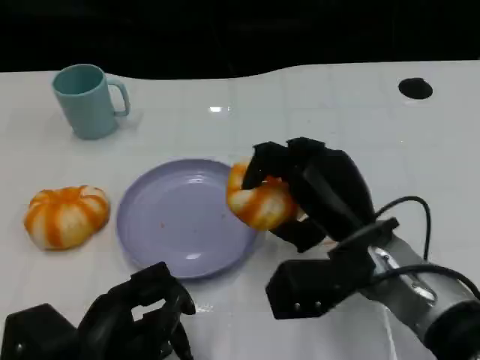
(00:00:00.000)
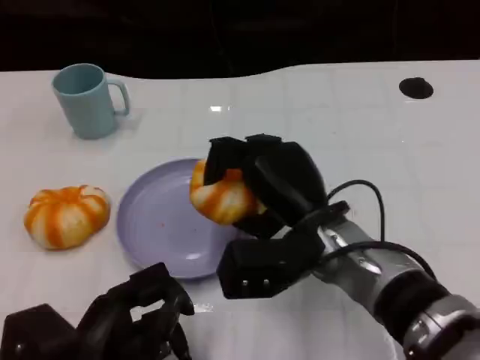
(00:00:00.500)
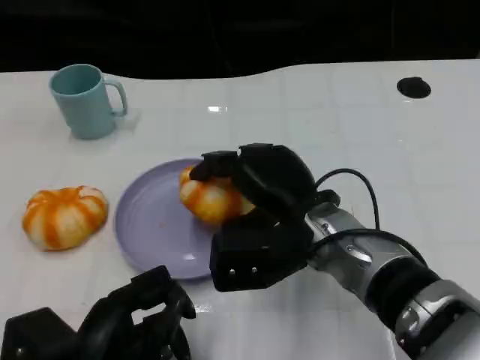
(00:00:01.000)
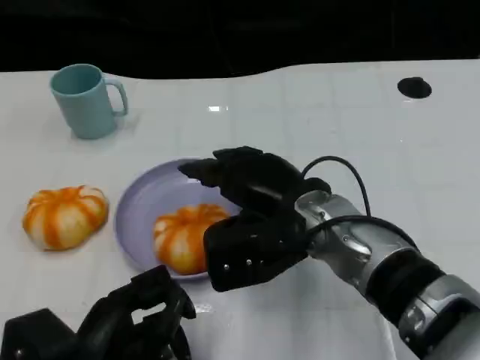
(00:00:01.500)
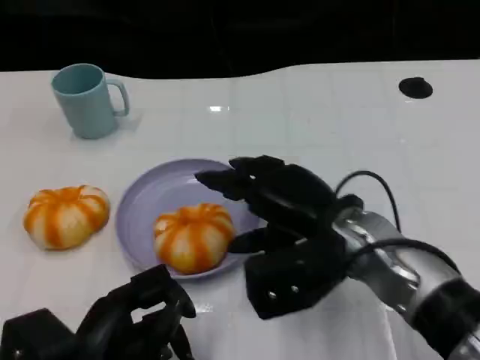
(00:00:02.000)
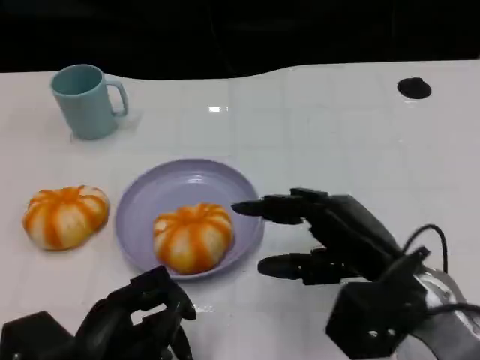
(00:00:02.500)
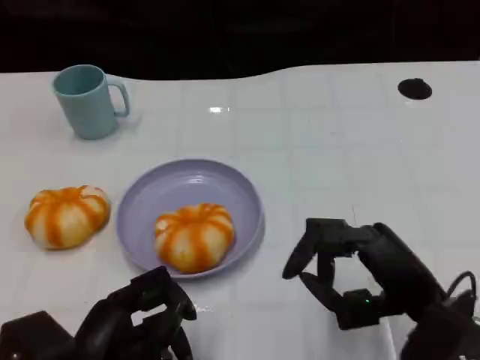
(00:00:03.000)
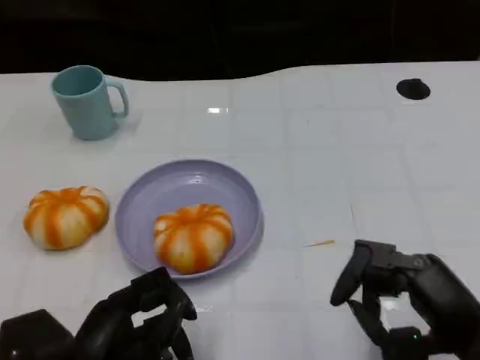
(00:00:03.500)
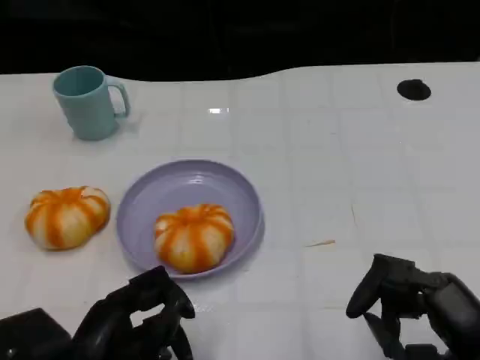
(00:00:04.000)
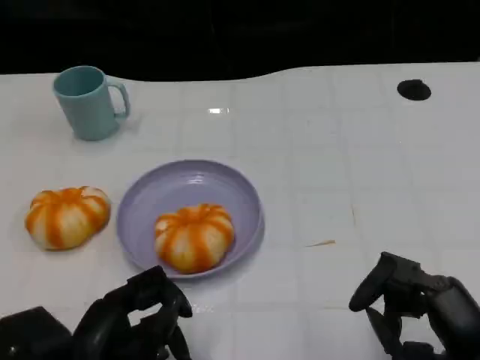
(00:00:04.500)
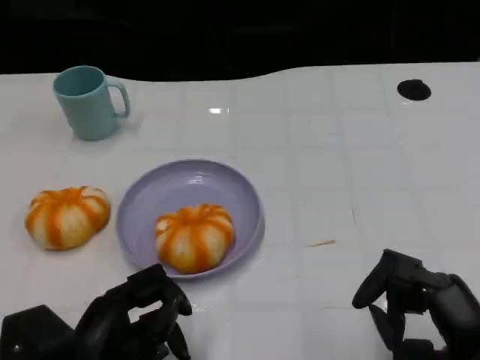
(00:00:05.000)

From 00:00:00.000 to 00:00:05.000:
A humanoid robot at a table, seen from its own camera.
Task of the whole recording: Grasp the bread from the table and place it into the plate.
From 00:00:00.000 to 00:00:02.500: The right hand moves approximately 5 cm.
From 00:00:02.500 to 00:00:05.000: The right hand shifts some 10 cm backward and to the right.

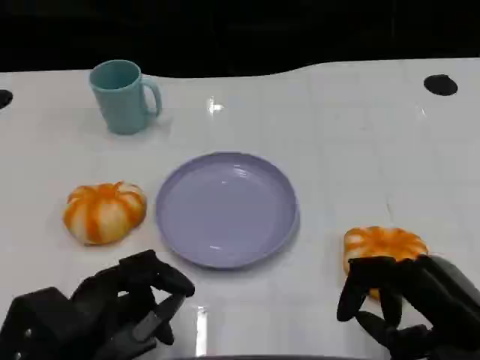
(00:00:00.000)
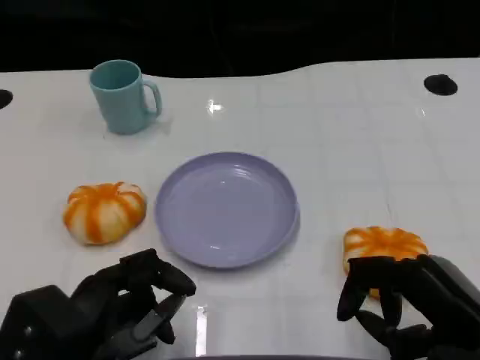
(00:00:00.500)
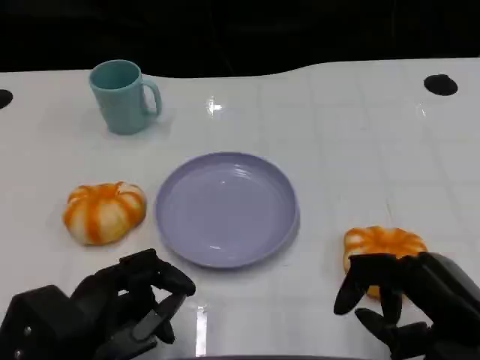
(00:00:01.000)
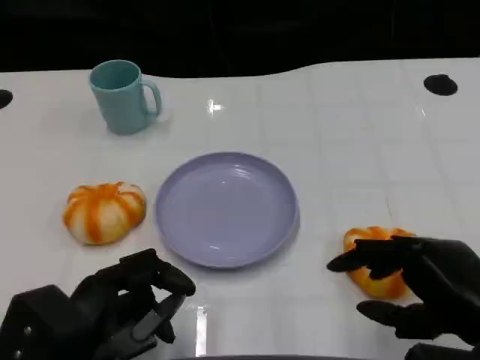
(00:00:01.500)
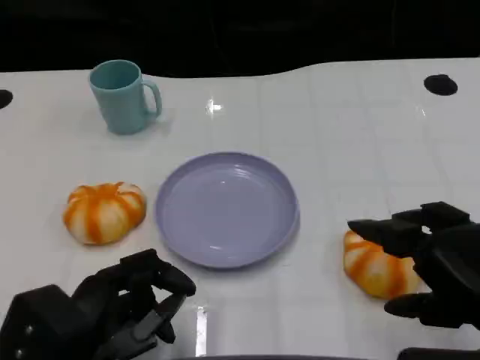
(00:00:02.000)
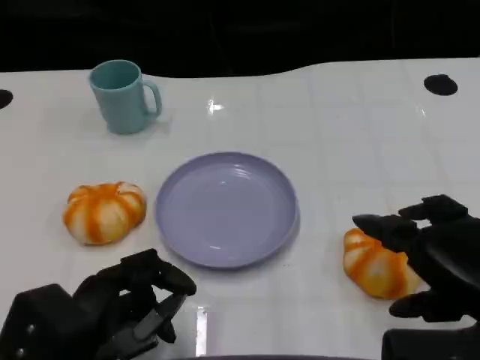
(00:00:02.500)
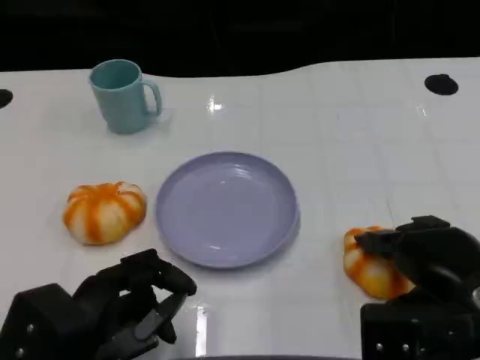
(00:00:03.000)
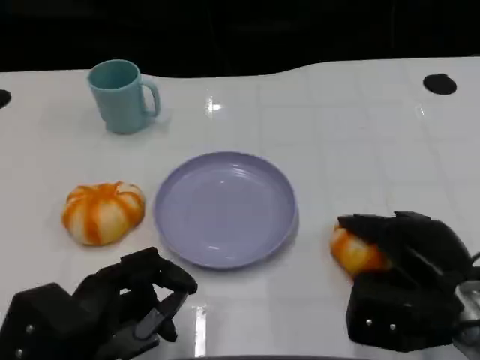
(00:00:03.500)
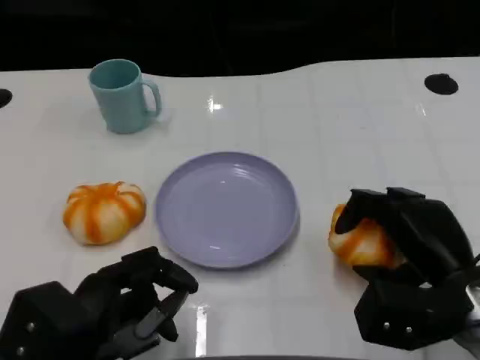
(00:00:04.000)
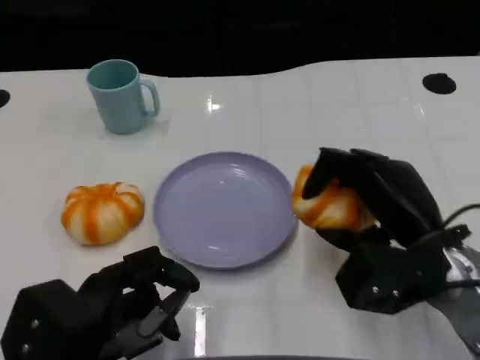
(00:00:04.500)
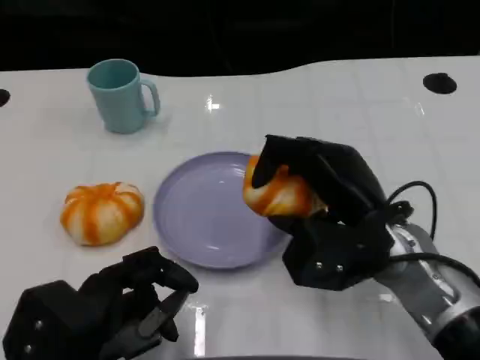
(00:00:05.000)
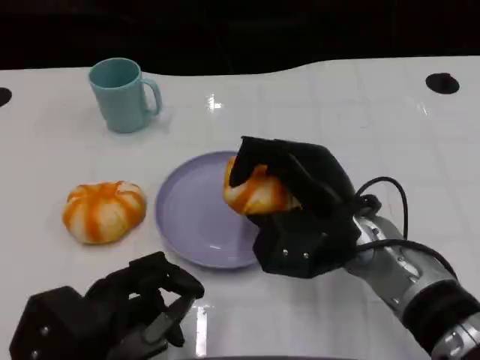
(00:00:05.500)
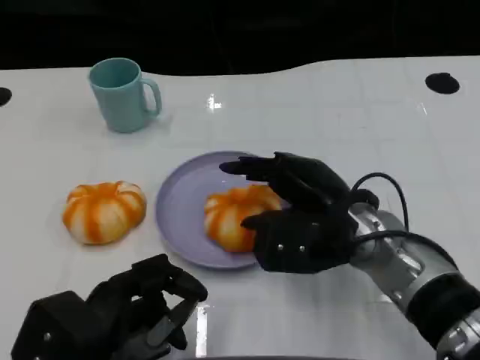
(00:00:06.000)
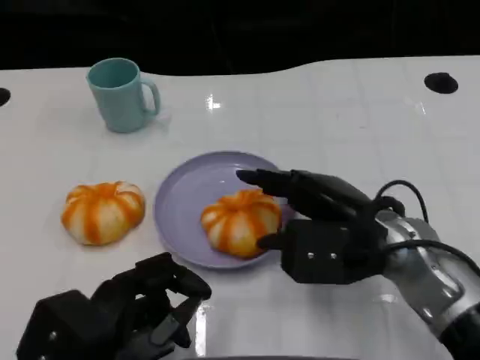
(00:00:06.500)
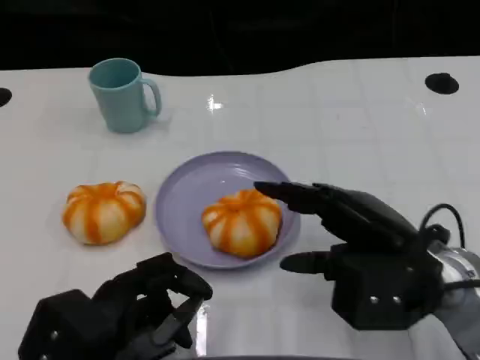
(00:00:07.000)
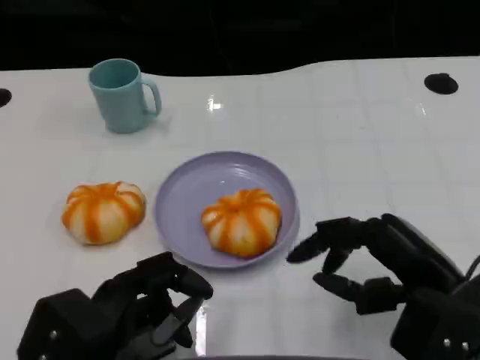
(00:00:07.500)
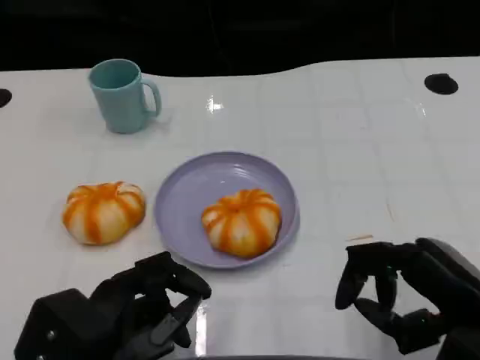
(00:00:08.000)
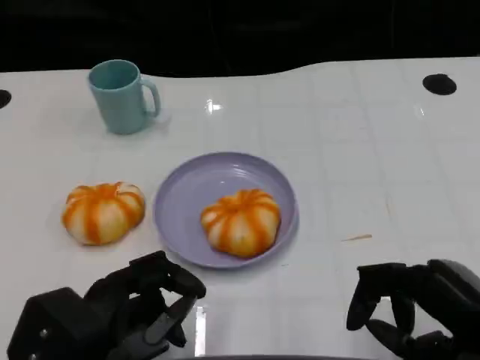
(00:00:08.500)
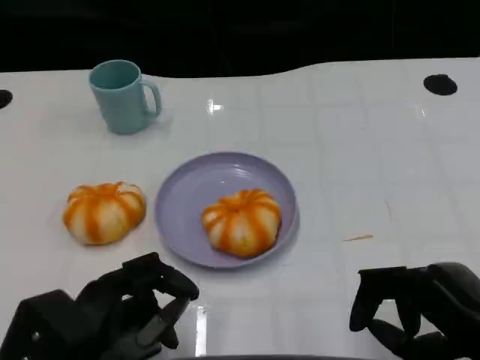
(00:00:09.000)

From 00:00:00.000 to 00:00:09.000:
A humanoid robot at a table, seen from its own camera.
Task of the whole recording: Grasp the bread from the table and place it into the plate.
From 00:00:02.000 to 00:00:04.500: The right hand shifts roughly 10 cm forward and to the left.
From 00:00:04.500 to 00:00:07.000: The right hand reaches approximately 10 cm to the left, then returns.
From 00:00:07.000 to 00:00:09.000: The right hand travels backward and to the right by about 10 cm.

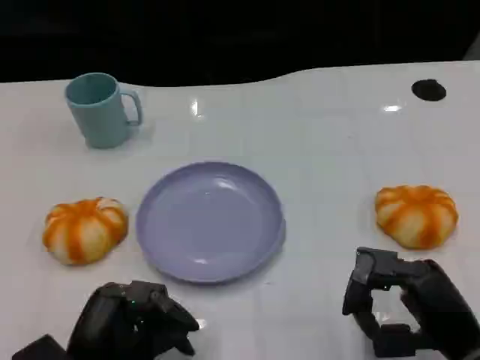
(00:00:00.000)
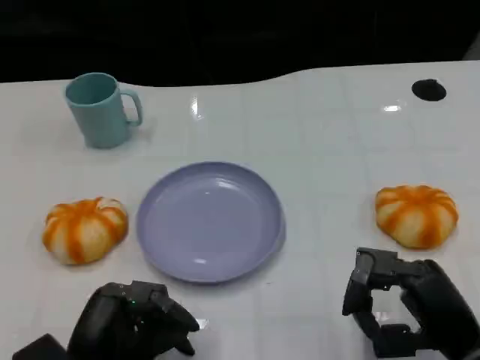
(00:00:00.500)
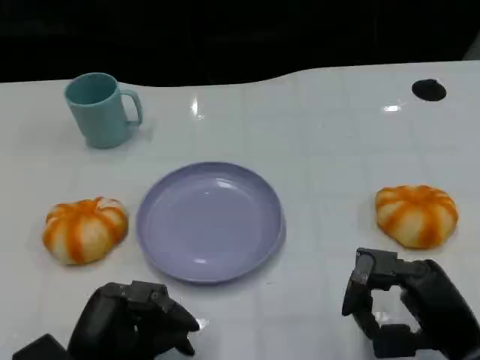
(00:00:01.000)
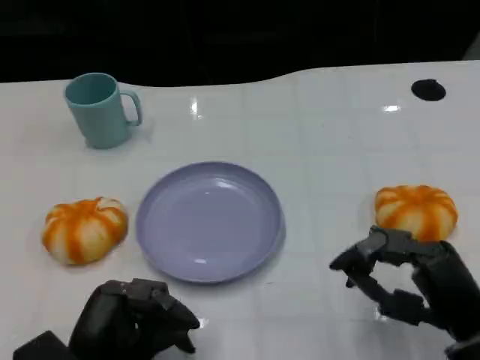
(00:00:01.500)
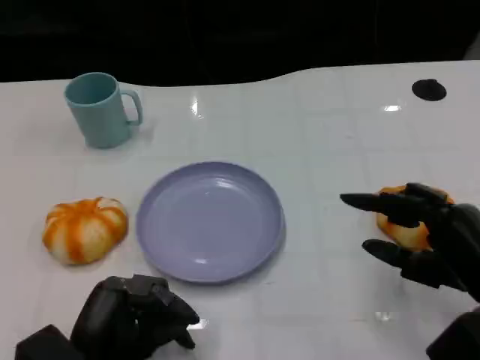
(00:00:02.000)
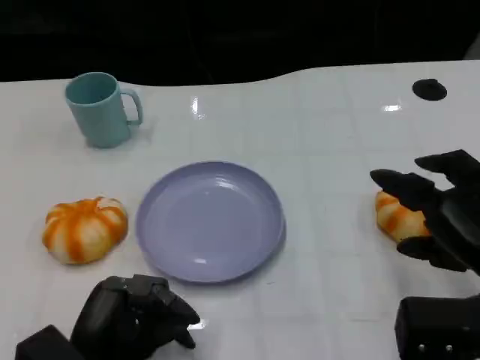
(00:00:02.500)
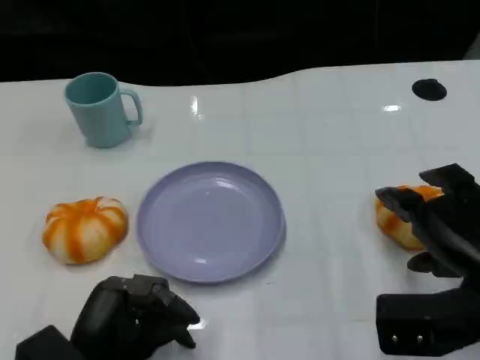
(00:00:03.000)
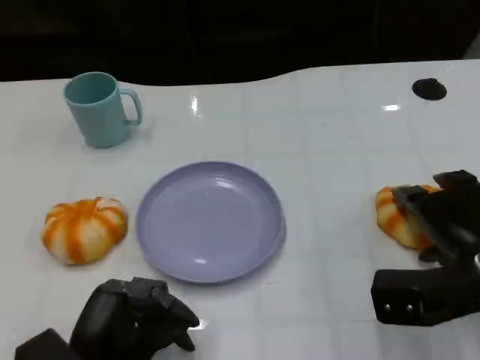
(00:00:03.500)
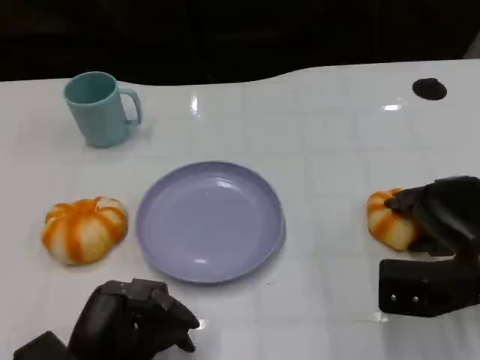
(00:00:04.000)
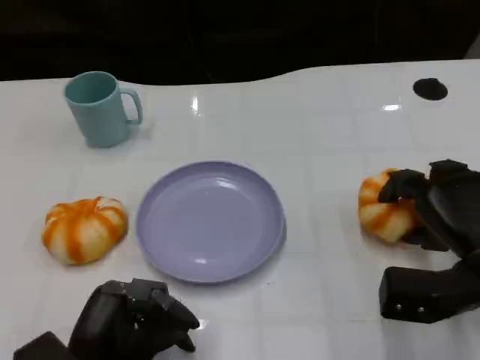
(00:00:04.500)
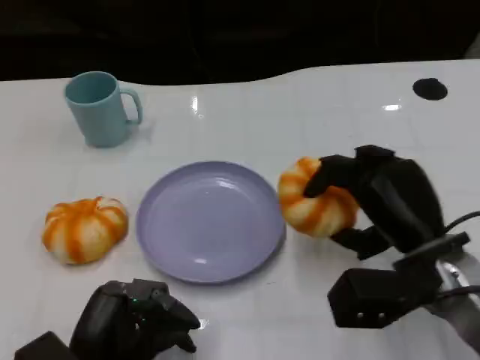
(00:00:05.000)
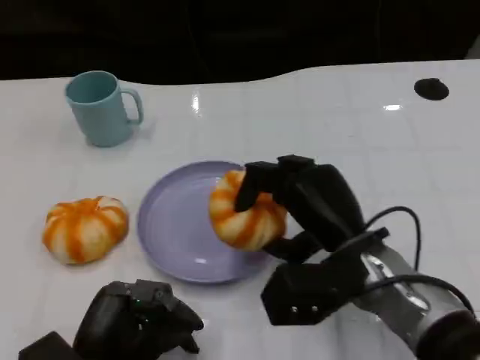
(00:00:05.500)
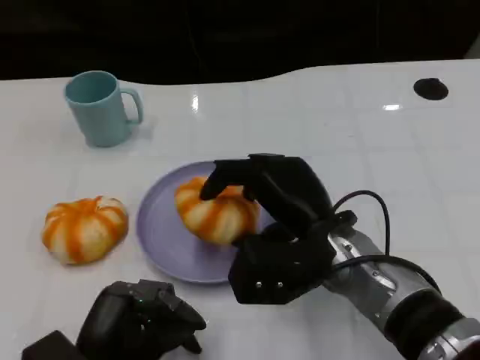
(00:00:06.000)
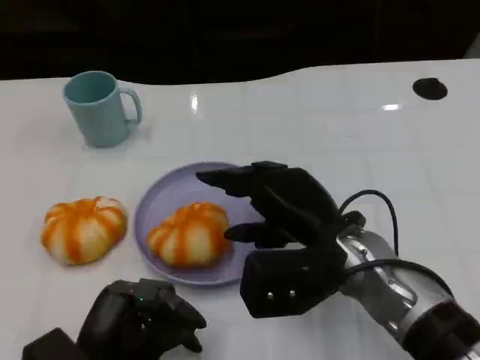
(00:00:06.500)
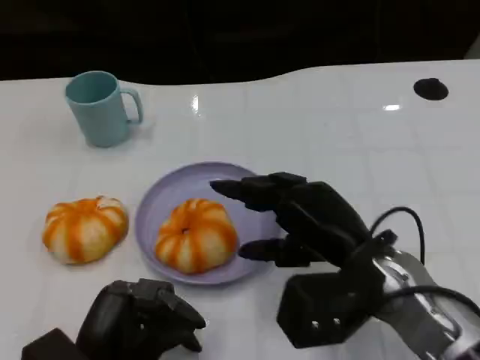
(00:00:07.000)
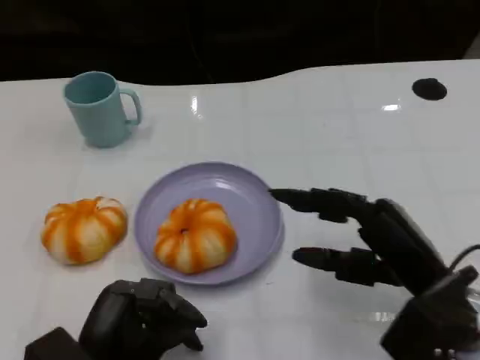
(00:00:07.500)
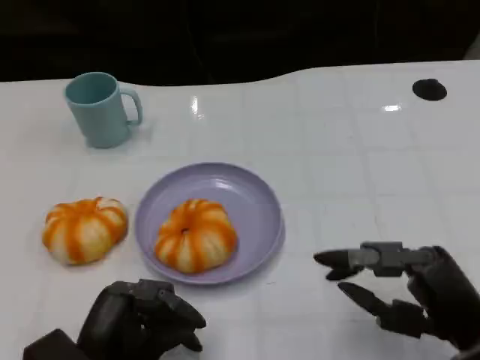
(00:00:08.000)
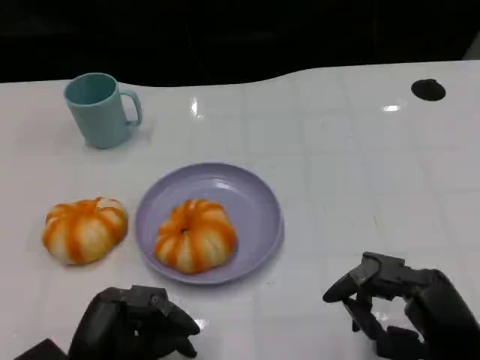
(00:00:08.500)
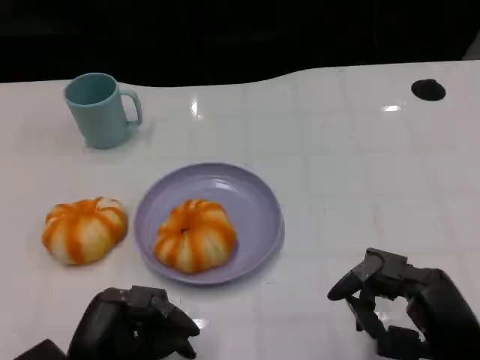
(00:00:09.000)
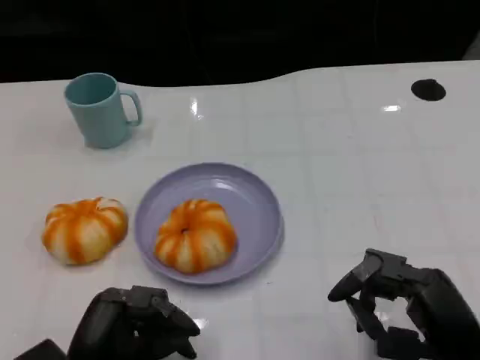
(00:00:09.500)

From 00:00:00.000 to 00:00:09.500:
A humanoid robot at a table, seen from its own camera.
Task of the whole recording: Grasp the bread from the table and place it into the plate.
From 00:00:00.000 to 00:00:02.000: The right hand ends up about 5 cm from where it was.
From 00:00:02.000 to 00:00:04.000: The right hand is displaced forward by about 5 cm.
From 00:00:04.000 to 00:00:05.500: The right hand is displaced to the left by some 15 cm.
From 00:00:05.500 to 00:00:07.500: The right hand is displaced to the right and backward by approximately 10 cm.
From 00:00:07.500 to 00:00:09.500: The right hand moves backward, about 5 cm.
